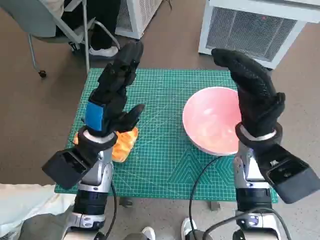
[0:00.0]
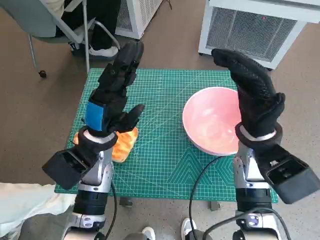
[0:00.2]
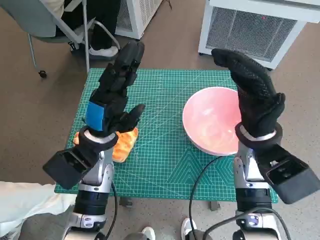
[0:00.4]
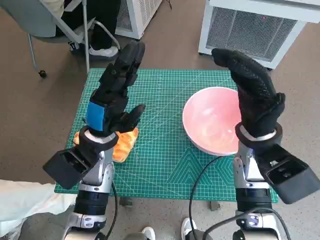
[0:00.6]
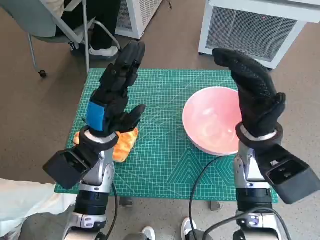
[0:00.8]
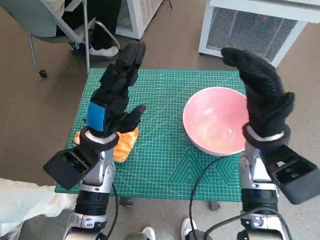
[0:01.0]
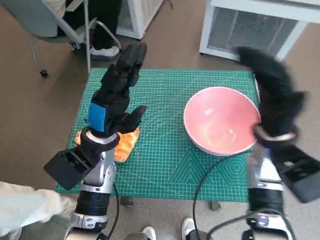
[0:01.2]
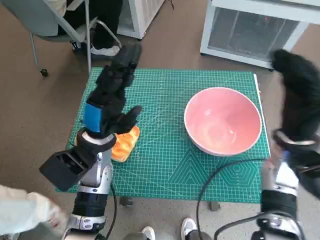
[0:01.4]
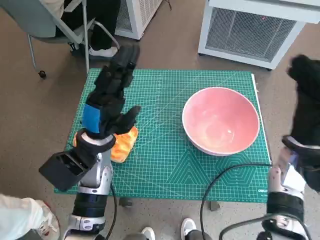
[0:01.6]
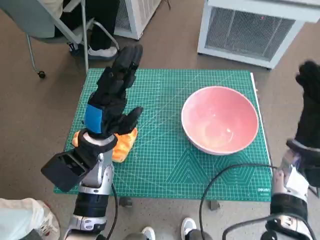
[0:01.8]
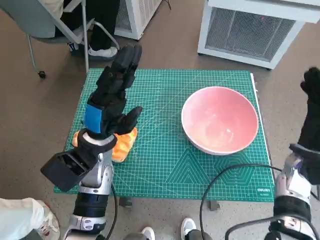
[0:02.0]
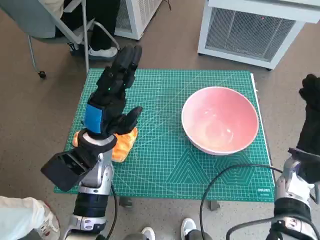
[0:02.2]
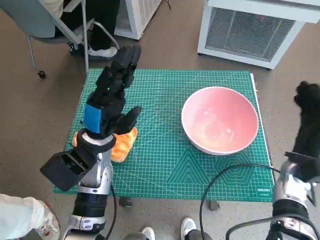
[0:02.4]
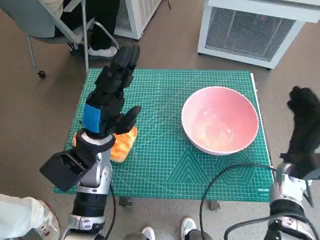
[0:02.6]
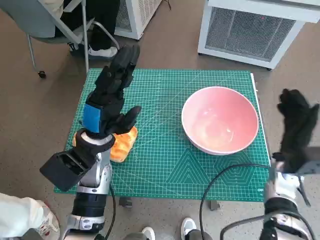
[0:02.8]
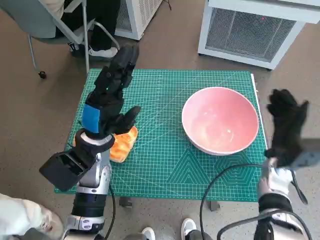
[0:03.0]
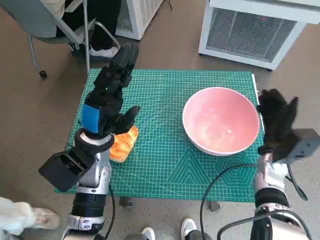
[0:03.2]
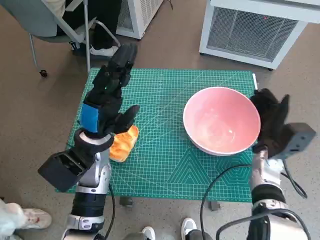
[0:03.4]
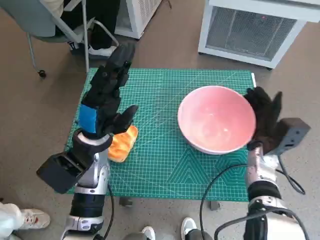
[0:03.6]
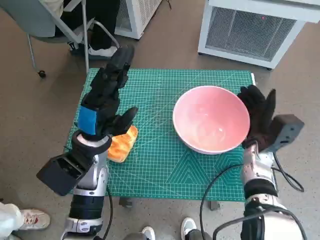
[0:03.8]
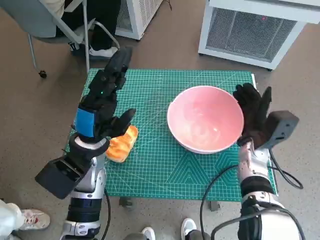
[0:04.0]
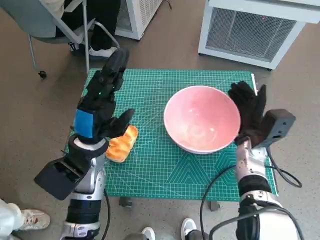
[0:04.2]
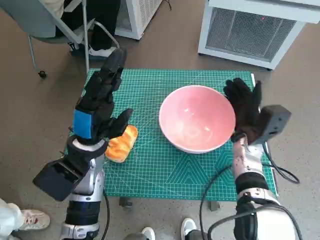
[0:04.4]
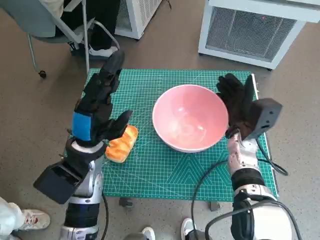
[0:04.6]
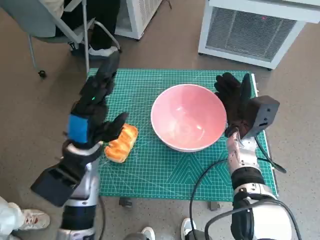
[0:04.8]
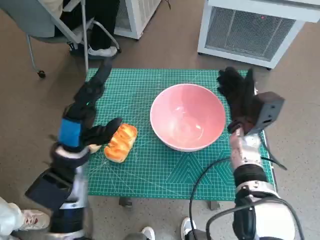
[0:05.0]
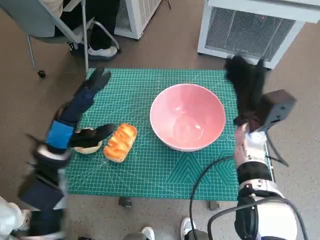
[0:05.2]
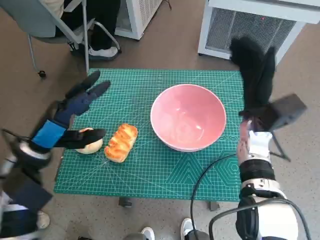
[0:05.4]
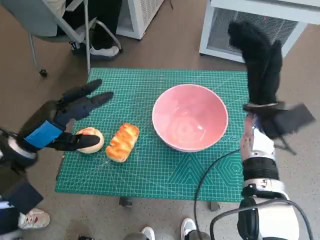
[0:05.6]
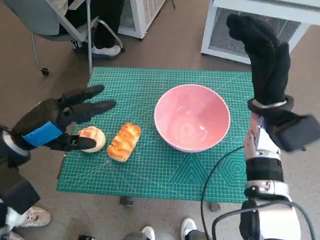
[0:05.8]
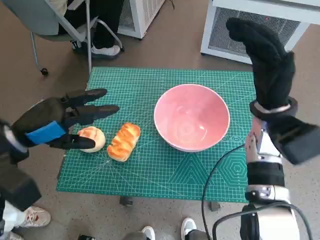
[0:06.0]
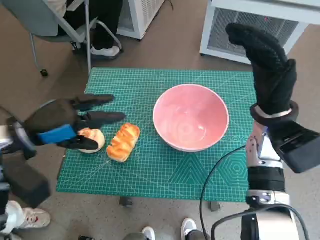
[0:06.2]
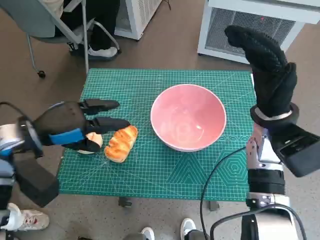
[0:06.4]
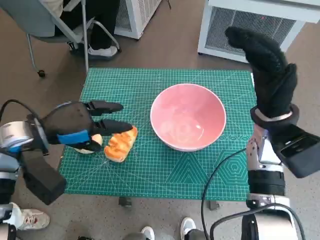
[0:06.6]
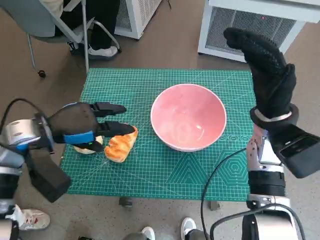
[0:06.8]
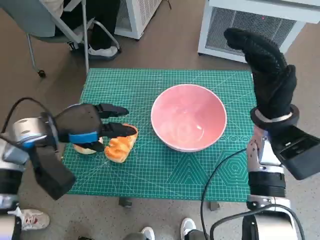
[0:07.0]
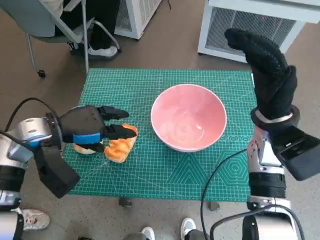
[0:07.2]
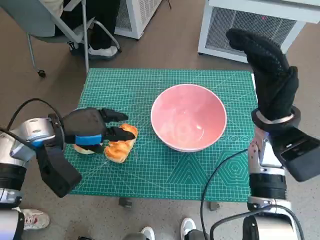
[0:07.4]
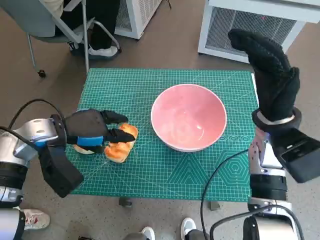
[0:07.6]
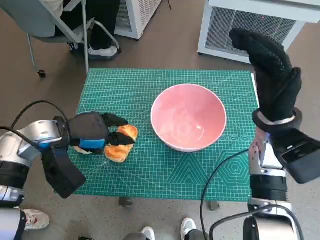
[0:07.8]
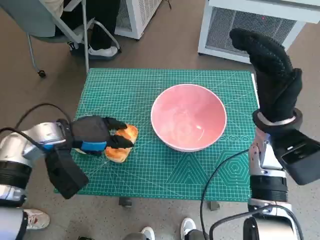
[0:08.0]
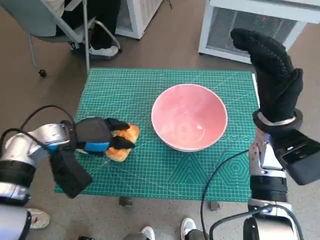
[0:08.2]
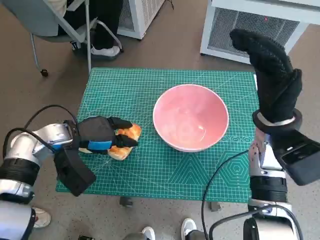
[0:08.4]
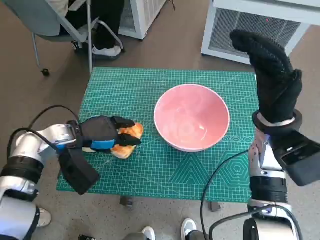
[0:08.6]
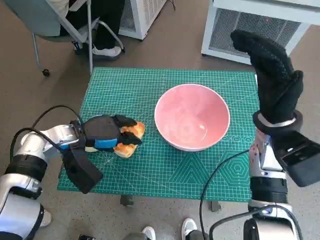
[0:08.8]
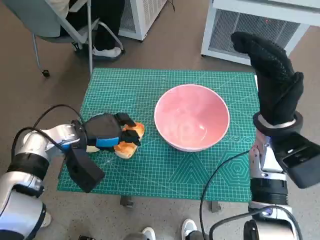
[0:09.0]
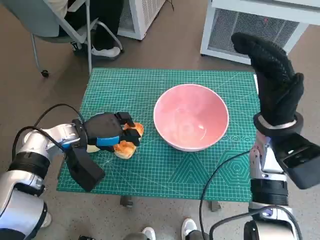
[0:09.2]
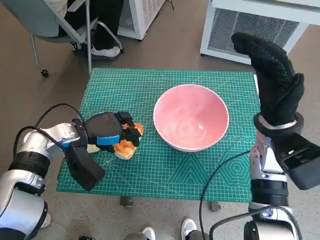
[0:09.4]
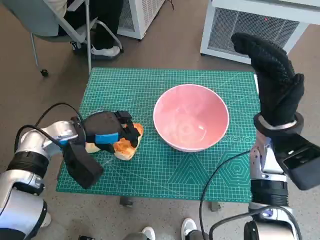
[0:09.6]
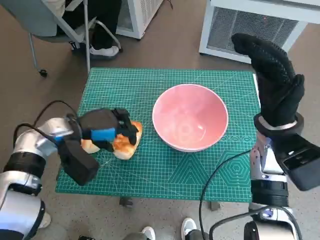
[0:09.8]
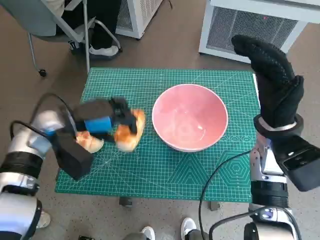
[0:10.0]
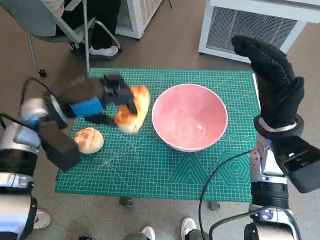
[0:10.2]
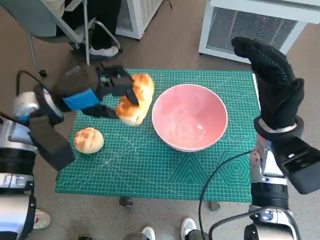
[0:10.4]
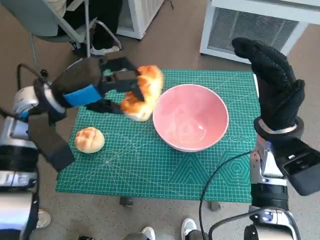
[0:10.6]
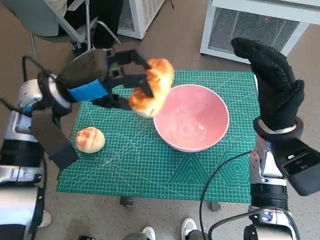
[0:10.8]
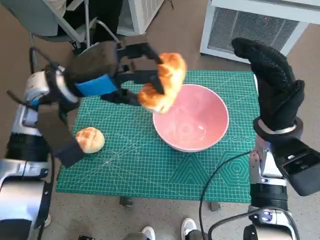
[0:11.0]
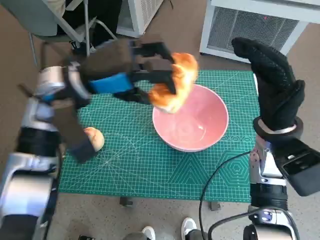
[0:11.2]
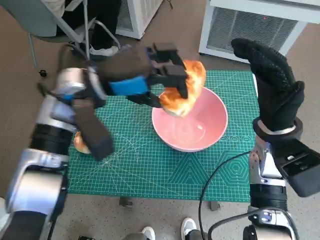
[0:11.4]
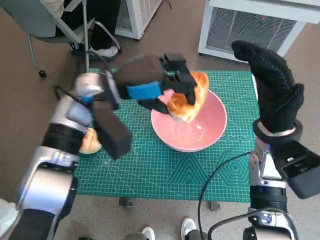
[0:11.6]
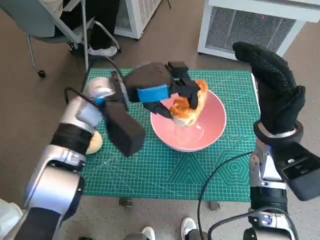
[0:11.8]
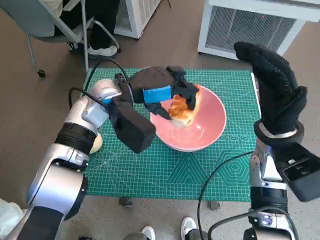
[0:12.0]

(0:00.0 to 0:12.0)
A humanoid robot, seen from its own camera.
Task of the whole recording: Push the bowl to the center of the table and put the bread into the bowl.
Step, 0:00.0 - 0:05.0: Move the pink bowl to the center of table with right hand.
Step, 0:05.2 - 0:08.8: Grasp the long bread with left hand.
0:01.6 - 0:03.0: The right hand shifts about 10 cm downward.
0:03.0 - 0:04.4: The right hand moves to the left, about 5 cm.
0:04.4 - 0:06.0: The right hand heads upward, covering roughly 10 cm. Meanwhile the left hand heads to the left and upward, covering roughly 15 cm.
0:06.0 - 0:07.6: The left hand moves forward, some 5 cm.
0:07.6 - 0:09.0: The left hand heads downward, covering some 5 cm.
0:09.0 - 0:10.4: The left hand shifts roughly 10 cm upward.
0:10.4 - 0:12.0: The left hand goes about 10 cm to the right.

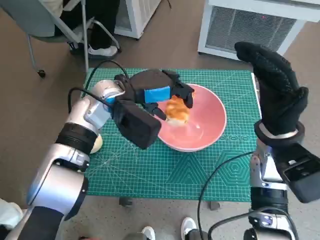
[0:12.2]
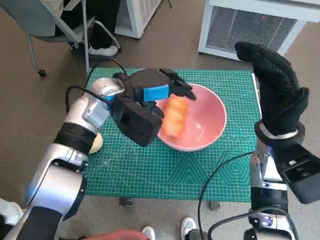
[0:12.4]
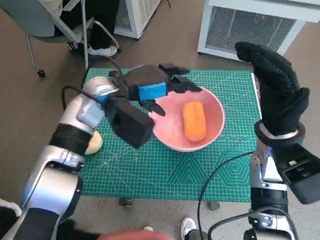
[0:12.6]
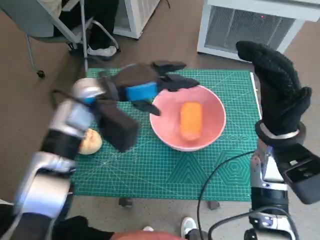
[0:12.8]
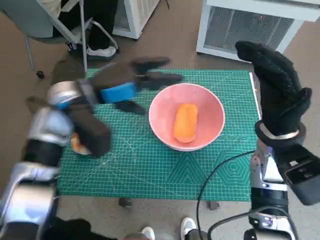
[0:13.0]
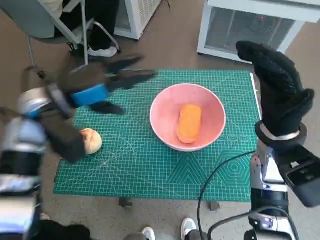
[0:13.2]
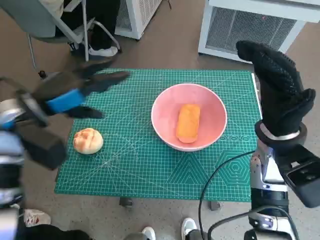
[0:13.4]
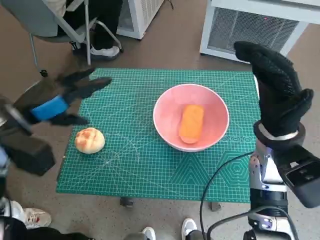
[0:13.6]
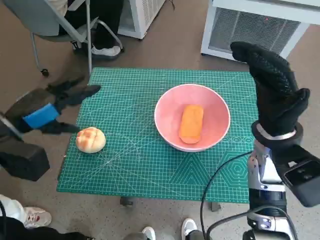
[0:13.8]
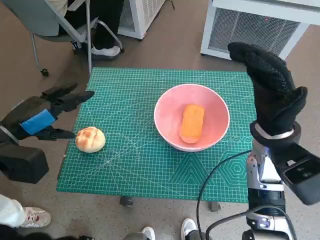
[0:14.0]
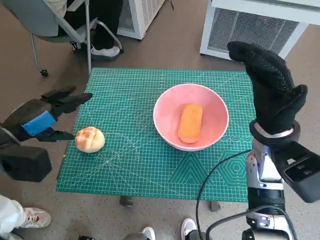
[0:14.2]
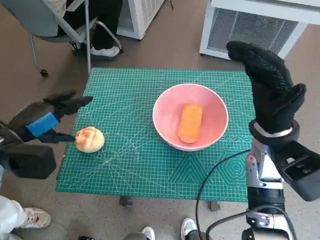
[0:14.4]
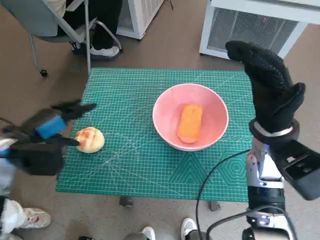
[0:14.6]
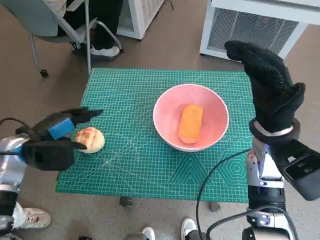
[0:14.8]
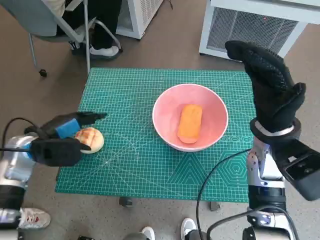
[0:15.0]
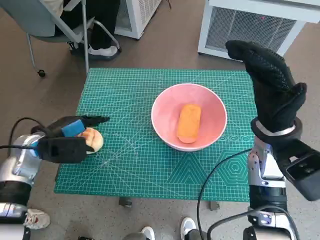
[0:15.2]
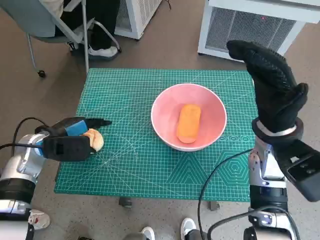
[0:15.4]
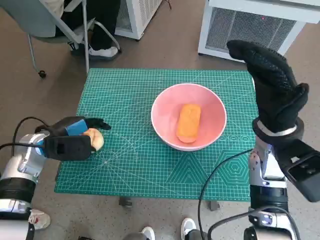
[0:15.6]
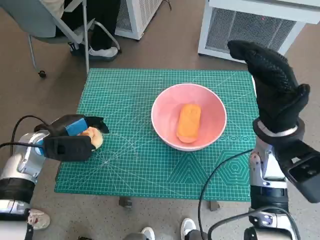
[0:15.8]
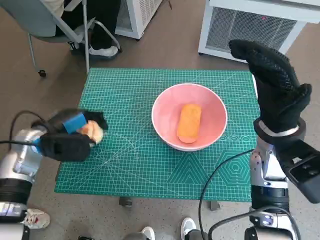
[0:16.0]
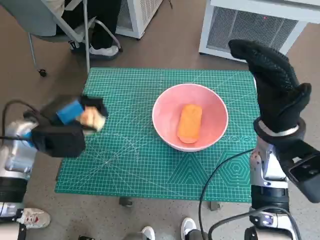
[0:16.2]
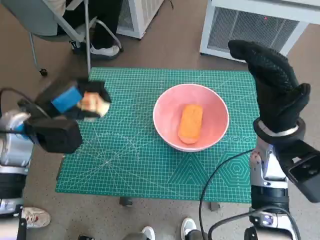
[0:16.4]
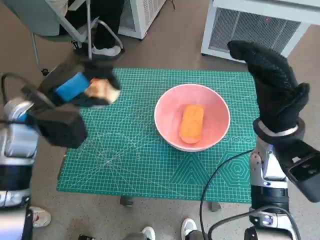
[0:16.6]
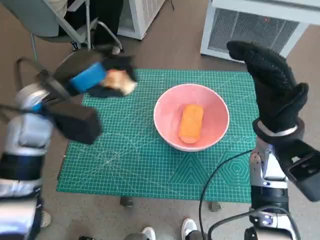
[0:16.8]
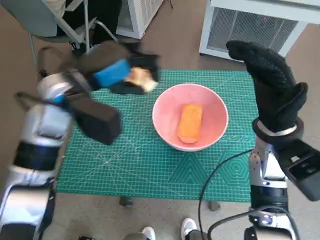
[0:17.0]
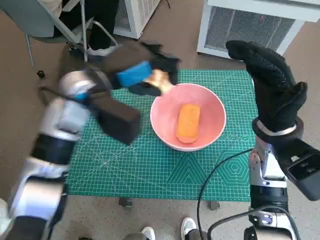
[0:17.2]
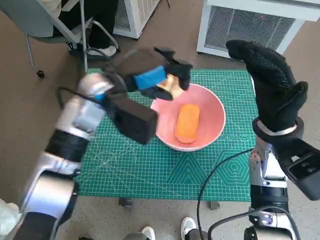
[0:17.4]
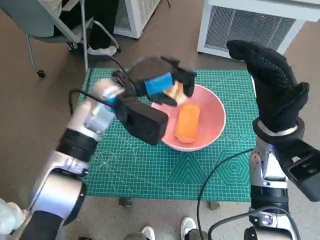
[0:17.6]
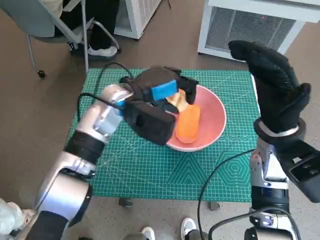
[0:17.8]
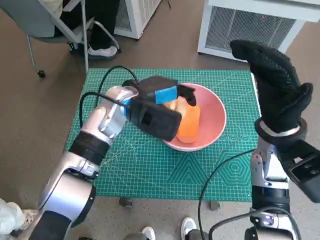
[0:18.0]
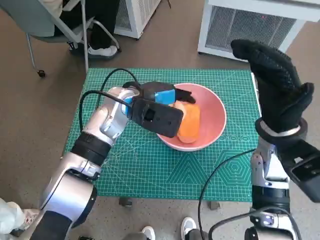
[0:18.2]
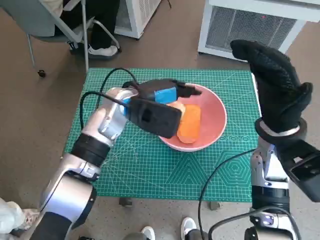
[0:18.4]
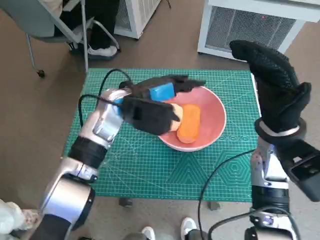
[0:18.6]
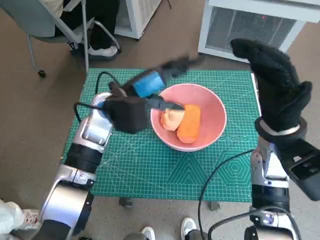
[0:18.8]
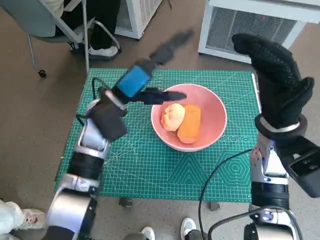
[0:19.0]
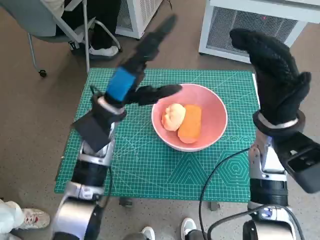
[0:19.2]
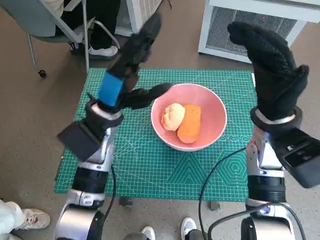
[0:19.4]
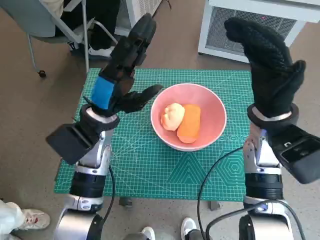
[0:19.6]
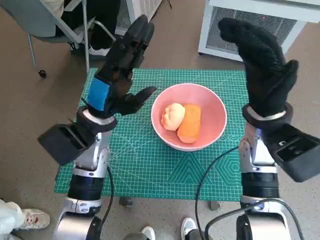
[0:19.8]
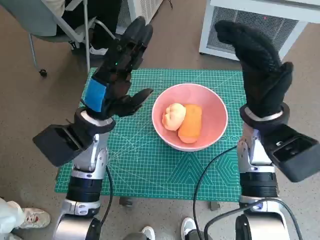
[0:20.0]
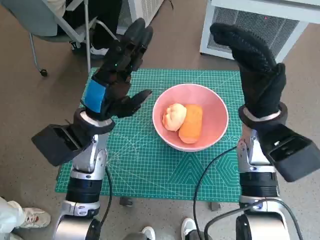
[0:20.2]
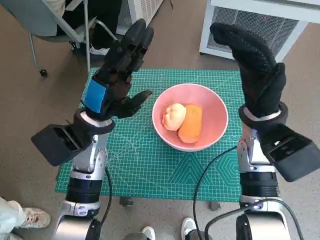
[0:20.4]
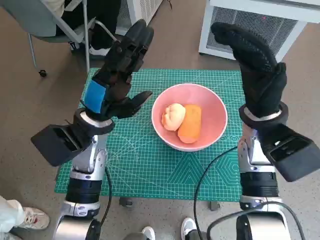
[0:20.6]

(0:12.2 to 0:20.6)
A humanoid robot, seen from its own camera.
Task of the whole recording: Push the bowl to the center of the table and put the bread into the bowl.
Step, 0:12.8 - 0:15.8: Grasp the round bread with left hand.
Step, 0:16.0 - 0:18.2: Place the round bread in pink bowl with left hand.
0:12.2 - 0:13.6: The left hand travels to the left and backward by about 20 cm.
0:13.6 - 0:15.0: The left hand goes approximately 10 cm downward.
0:15.0 - 0:16.4: The left hand is displaced upward by approximately 5 cm.
0:16.4 - 0:17.8: The left hand goes about 15 cm to the right.

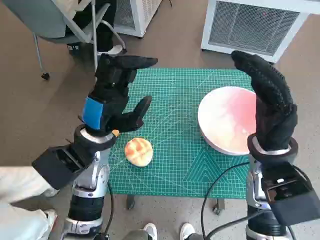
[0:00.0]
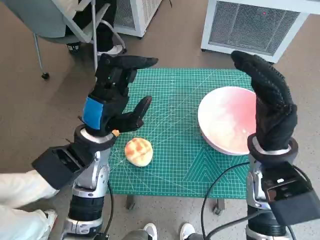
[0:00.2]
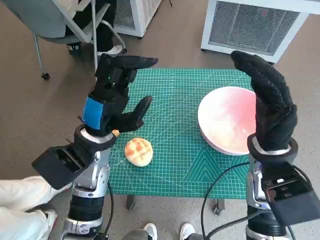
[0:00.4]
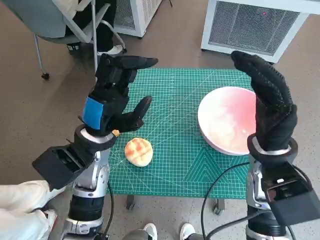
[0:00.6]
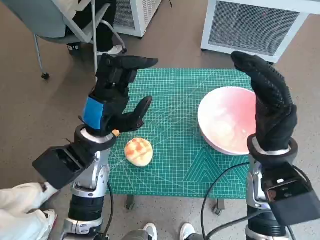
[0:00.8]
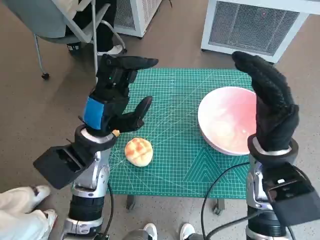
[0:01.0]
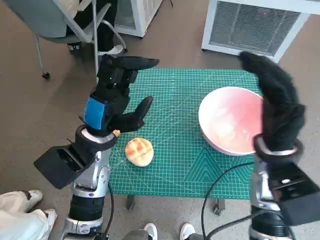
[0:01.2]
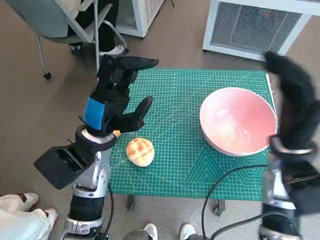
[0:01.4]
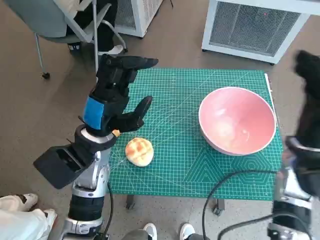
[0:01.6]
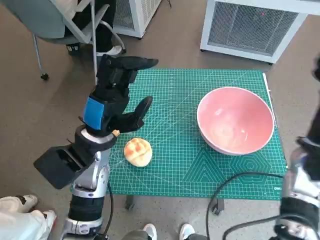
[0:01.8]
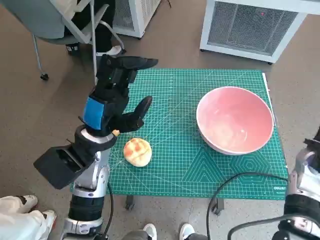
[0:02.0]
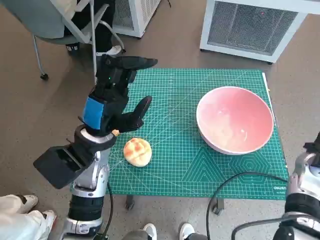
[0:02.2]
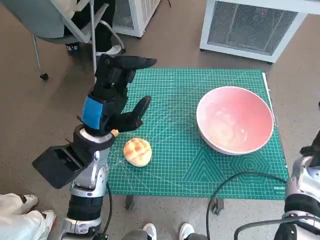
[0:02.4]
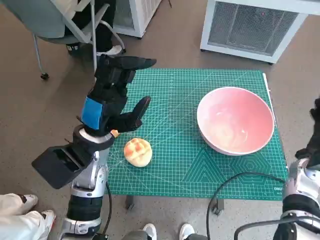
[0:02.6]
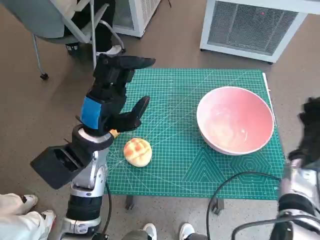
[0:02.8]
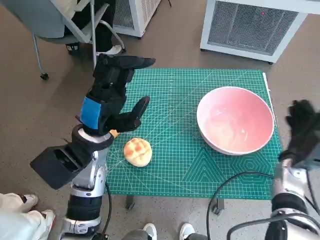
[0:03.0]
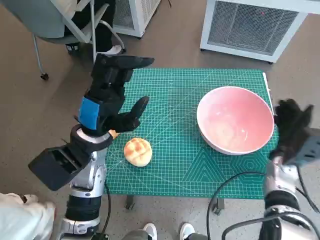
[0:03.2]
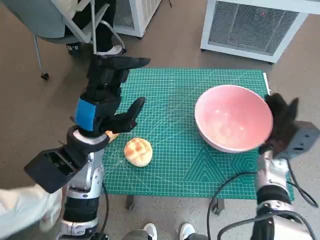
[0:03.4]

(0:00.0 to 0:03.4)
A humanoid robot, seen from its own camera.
Task of the whole recording: Push the bowl to the center of the table and put the bread into the bowl.
0:01.6 - 0:03.4: The right hand is displaced downward by roughly 10 cm.
